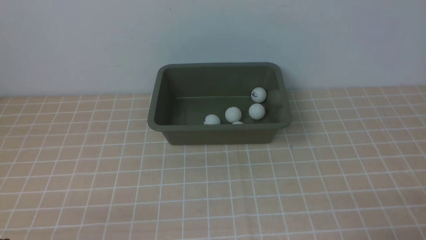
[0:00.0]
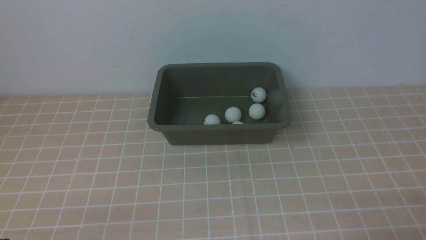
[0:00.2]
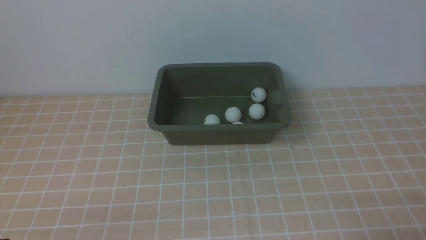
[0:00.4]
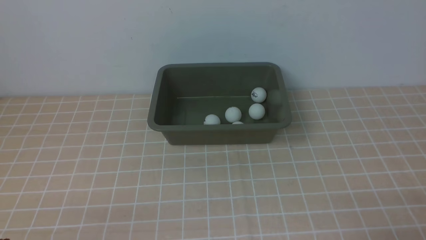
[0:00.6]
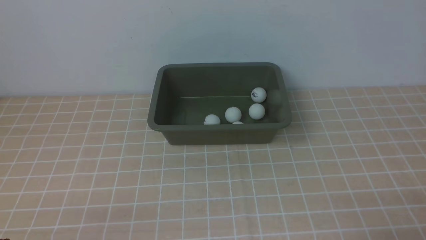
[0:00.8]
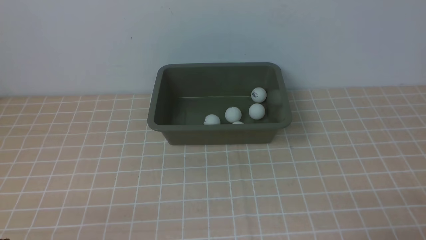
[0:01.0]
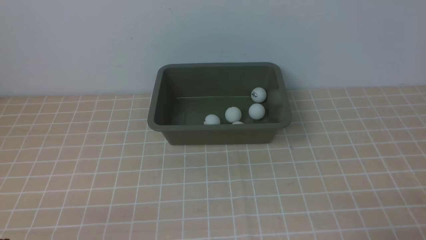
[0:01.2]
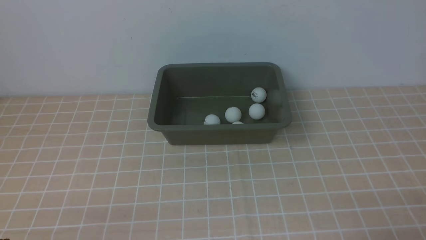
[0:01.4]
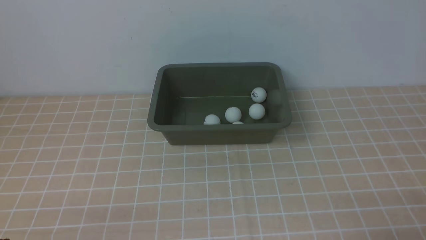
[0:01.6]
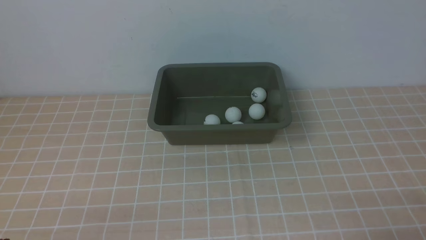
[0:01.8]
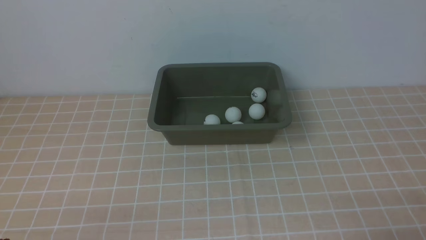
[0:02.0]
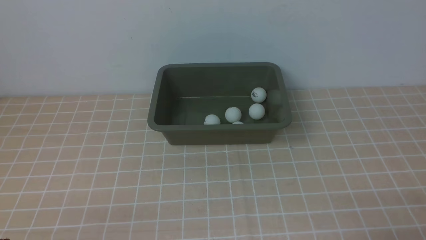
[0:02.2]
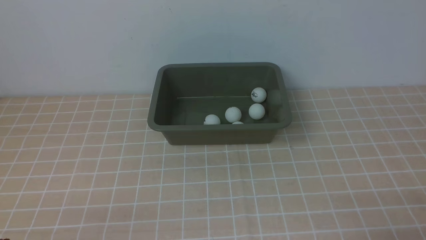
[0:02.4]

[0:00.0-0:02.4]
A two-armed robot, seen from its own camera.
0:00.0 to 0:02.4: The two grippers keep their place.

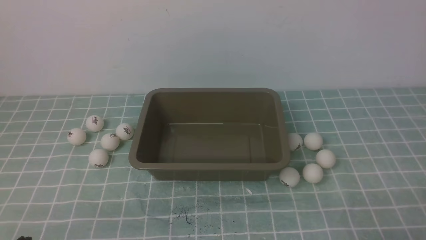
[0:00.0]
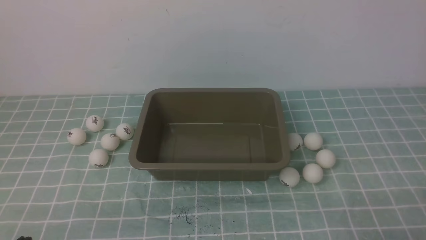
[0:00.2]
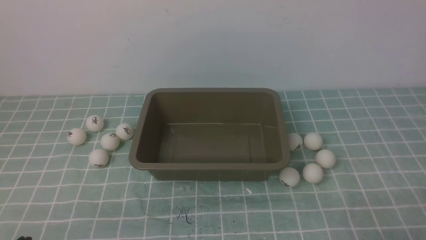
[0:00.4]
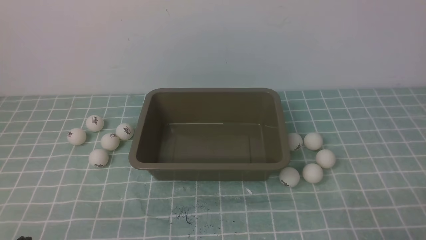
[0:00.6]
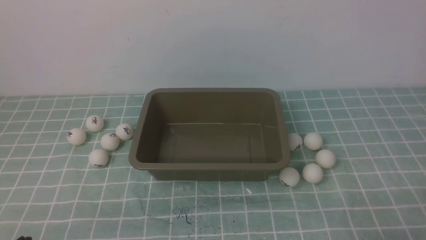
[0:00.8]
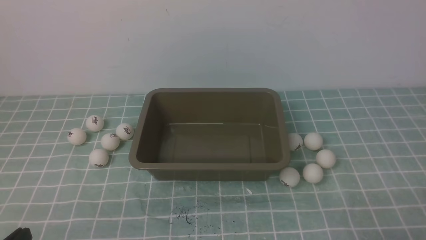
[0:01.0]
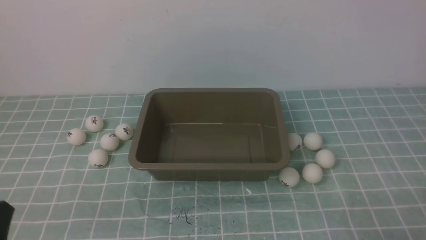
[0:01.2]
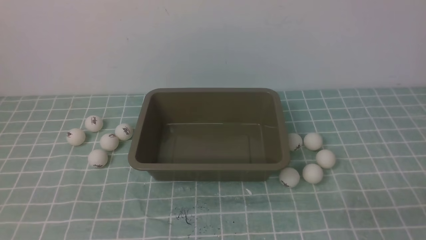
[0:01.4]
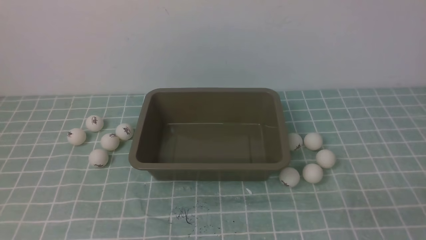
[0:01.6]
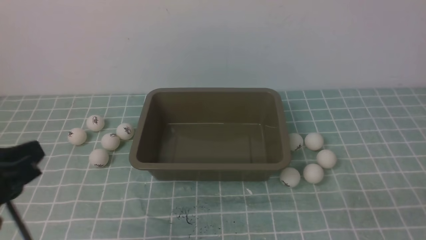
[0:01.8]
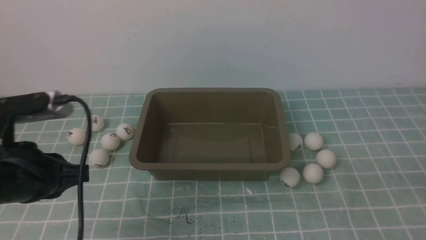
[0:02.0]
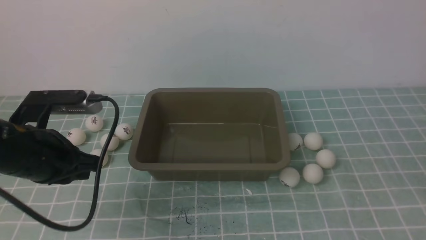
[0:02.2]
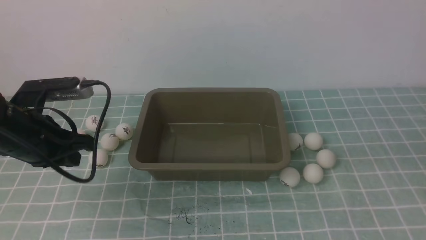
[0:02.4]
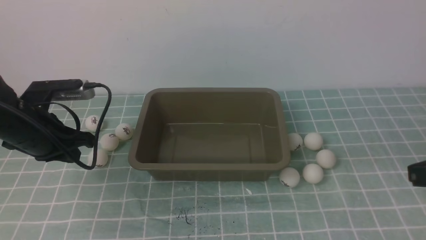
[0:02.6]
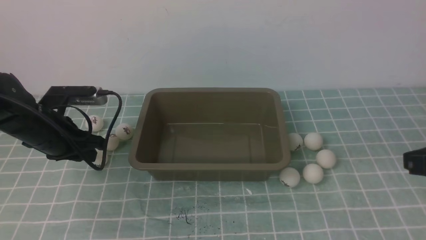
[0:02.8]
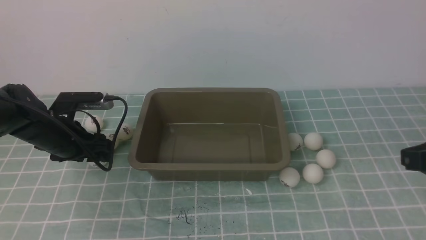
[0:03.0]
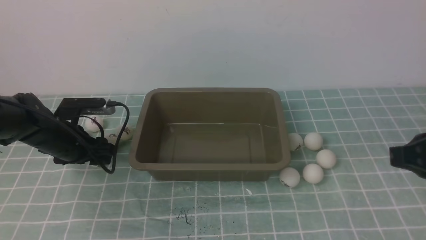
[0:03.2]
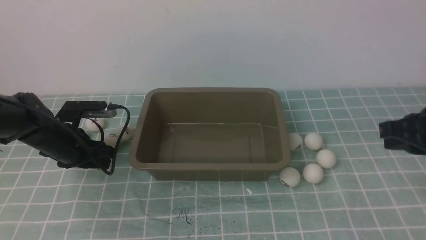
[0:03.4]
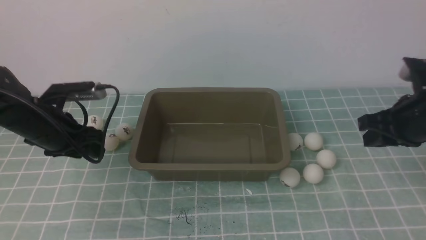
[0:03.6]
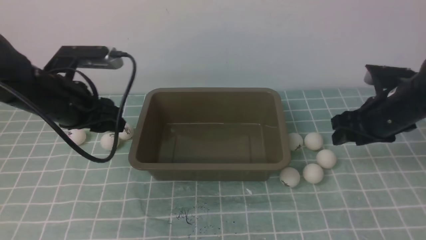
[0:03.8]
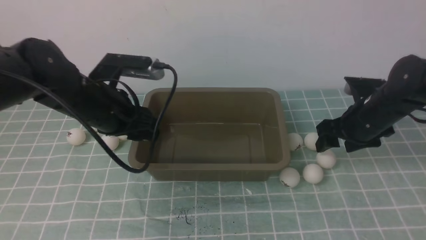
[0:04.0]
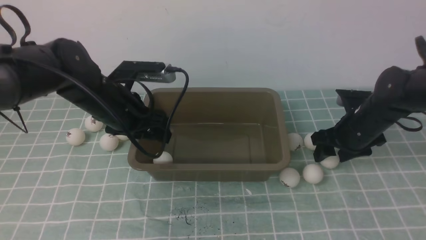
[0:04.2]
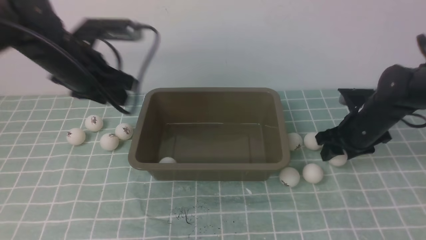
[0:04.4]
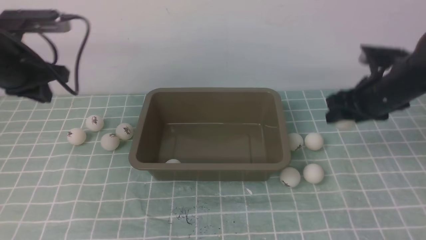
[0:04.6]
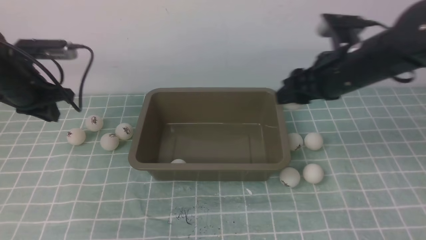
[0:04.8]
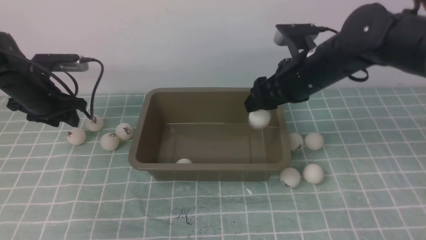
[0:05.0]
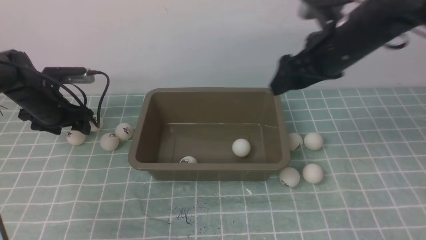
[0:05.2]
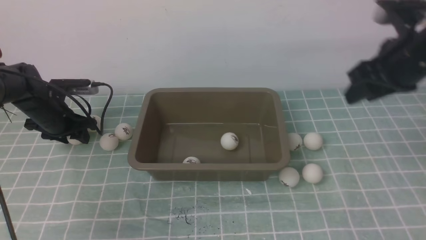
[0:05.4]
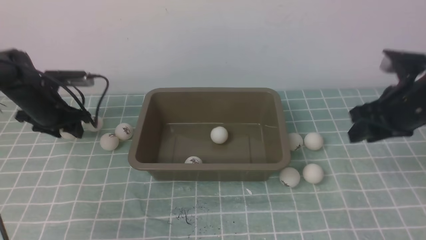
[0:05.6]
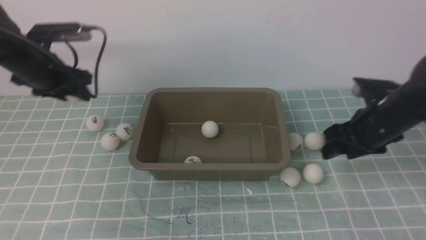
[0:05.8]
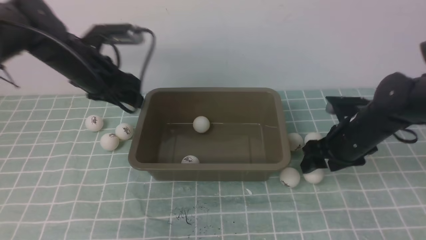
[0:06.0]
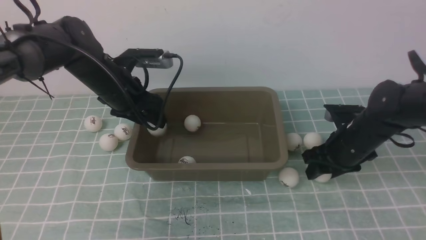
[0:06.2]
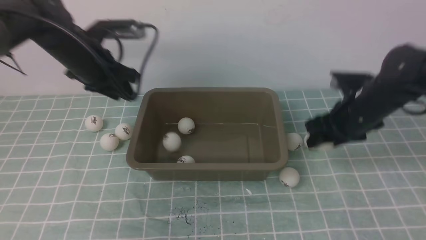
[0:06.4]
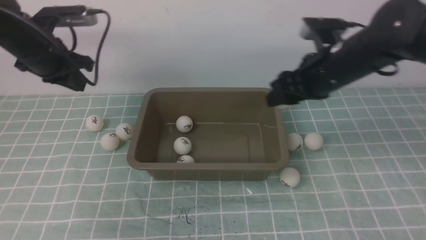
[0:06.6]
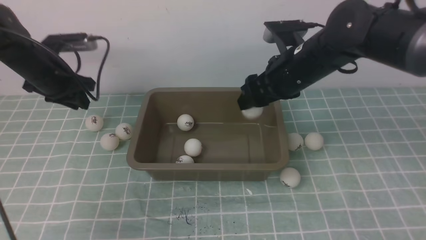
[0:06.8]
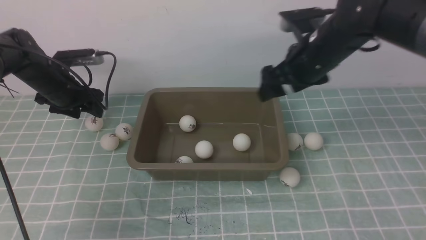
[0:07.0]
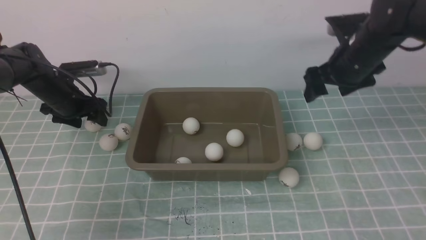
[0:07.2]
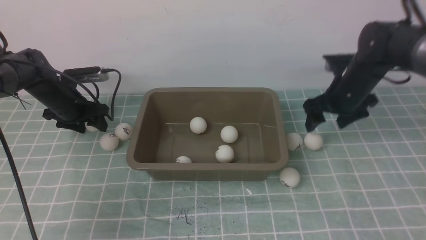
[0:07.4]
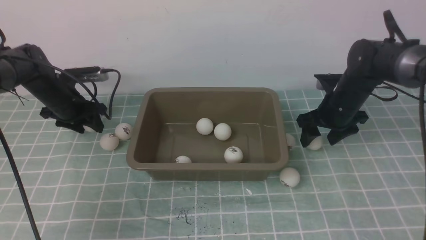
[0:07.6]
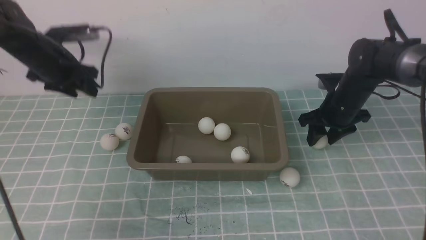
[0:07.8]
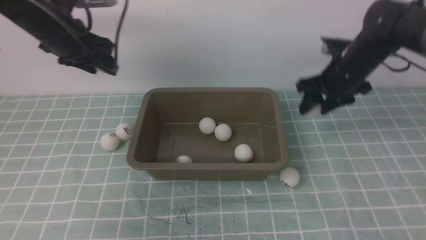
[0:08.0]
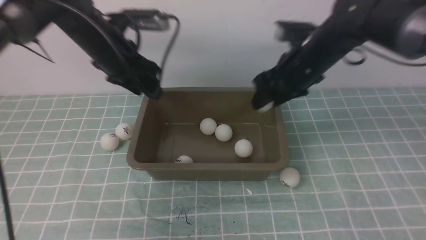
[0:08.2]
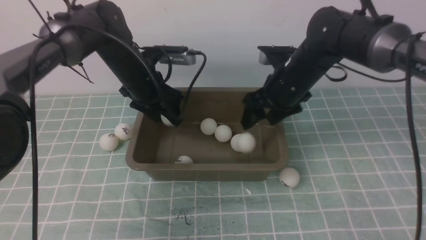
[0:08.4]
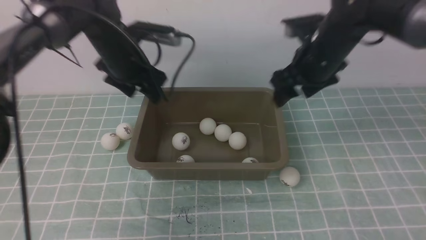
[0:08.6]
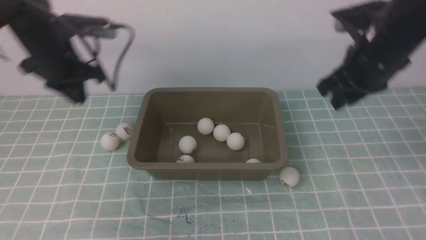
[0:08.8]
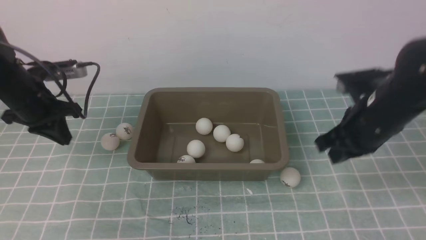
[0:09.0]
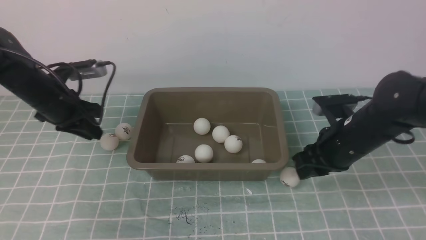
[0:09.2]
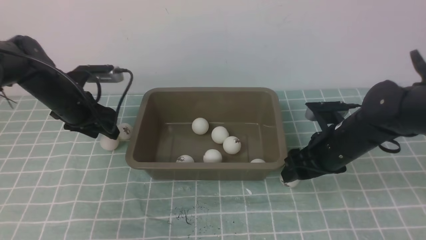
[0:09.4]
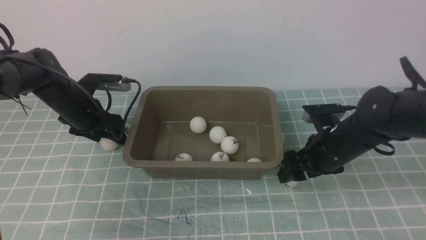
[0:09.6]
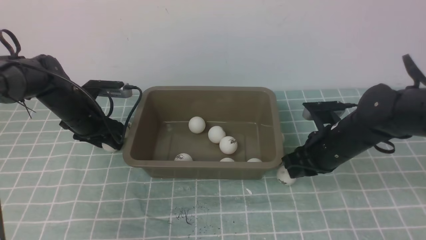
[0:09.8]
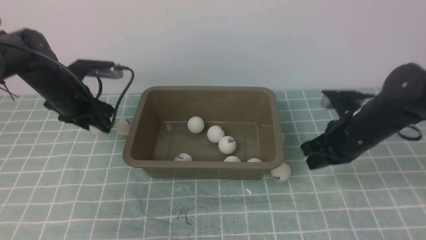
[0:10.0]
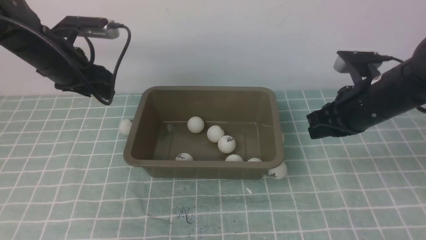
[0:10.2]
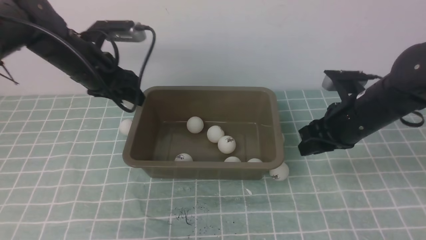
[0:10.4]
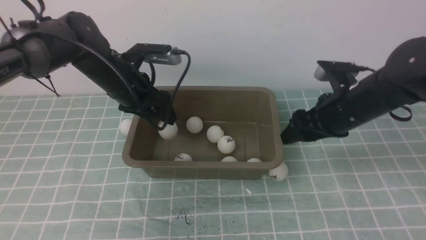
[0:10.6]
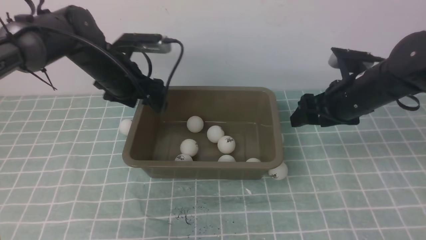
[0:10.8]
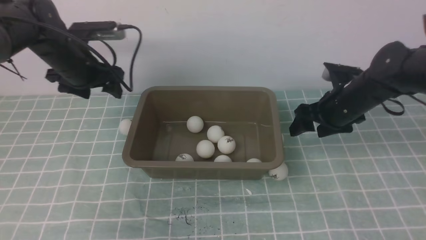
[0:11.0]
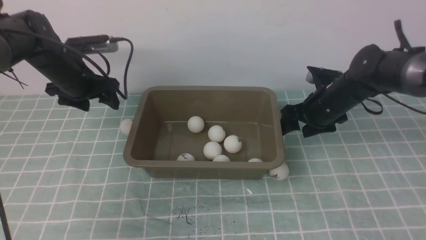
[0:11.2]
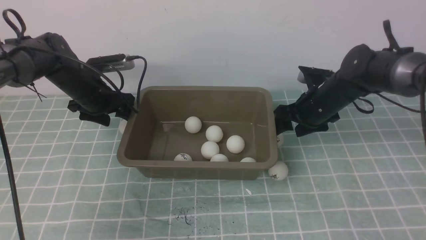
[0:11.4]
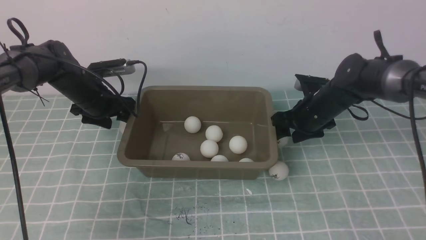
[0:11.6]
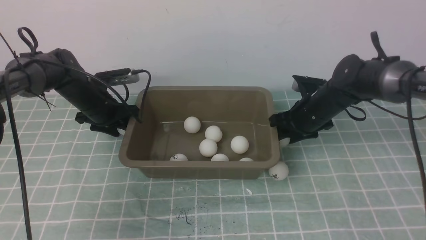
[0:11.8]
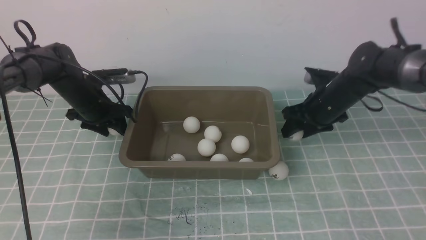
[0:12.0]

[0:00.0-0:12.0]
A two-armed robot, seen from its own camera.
Step, 0:00.0 to 0:03.4: use the left arm to clamp the table tennis ball closest to it.
Step, 0:03.6 to 0:04.2: use the left arm to put the table tennis ball into the box.
Step, 0:04.6 to 0:05.0: use the right arm to put the table tennis ball into the box.
Step, 0:05.2 to 0:05.6: use the left arm to clamp the table tennis ball closest to it.
Step, 0:05.8 to 0:06.2: use the left arm to put the table tennis ball into the box.
Step, 0:06.6 to 0:06.8: use the right arm to put the table tennis ball into the box.
Step, 0:07.0 to 0:07.8: use the left arm to clamp the table tennis ball closest to it.
Step, 0:08.0 to 0:08.4: use the left arm to put the table tennis ball into the box.
Step, 0:08.6 to 0:08.8: use the right arm to put the table tennis ball into the box.
Step, 0:09.0 to 0:09.8: use the left arm to clamp the table tennis ball closest to it.
Step, 0:10.0 to 0:10.6: use the left arm to put the table tennis ball into the box.
Step, 0:10.8 to 0:11.8: use the left arm to clamp the table tennis ball closest to it.
0:01.6 to 0:03.0: The left gripper shifts roughly 30 cm forward and downward, and opens up; the right gripper shifts some 15 cm forward and upward.
0:03.0 to 0:04.4: The left gripper is displaced upward by some 10 cm. The right gripper heads forward and downward, covering about 25 cm, and opens its fingers.
0:04.4 to 0:06.0: The right gripper travels upward and back again, approximately 10 cm each way. The left gripper reaches roughly 15 cm downward, then returns.
0:06.0 to 0:07.6: The right gripper goes roughly 10 cm forward, and travels upward and back again, roughly 10 cm each way; the left gripper shifts about 15 cm to the left, downward and forward, and closes, then reopens.
0:07.6 to 0:09.0: The left gripper goes some 5 cm backward, reaches about 15 cm to the right, then returns, and closes its fingers; the right gripper is displaced backward and upward by approximately 15 cm, and closes its fingers.
0:09.0 to 0:10.4: The left gripper goes approximately 10 cm to the right, travels downward and back again, about 5 cm each way, and opens up. Meanwhile the right gripper travels downward and back again, about 10 cm each way.
0:10.4 to 0:12.0: The left gripper is displaced downward and to the left by some 10 cm. Meanwhile the right gripper goes about 10 cm forward.

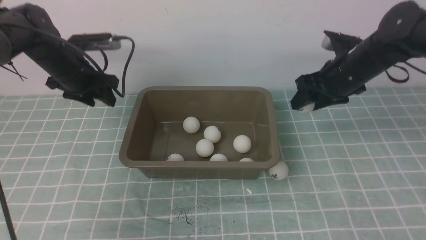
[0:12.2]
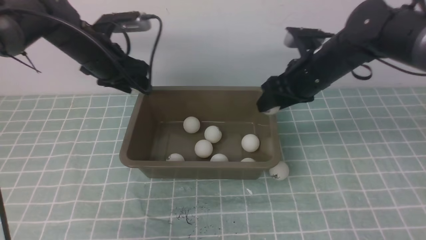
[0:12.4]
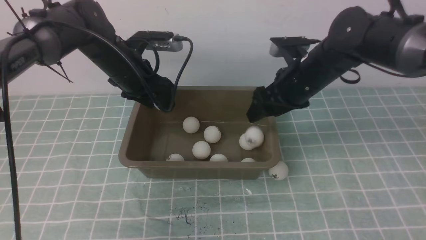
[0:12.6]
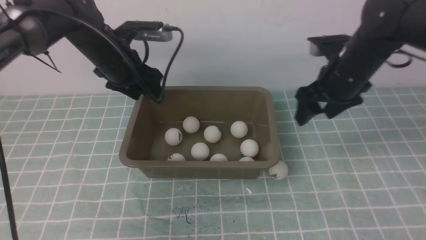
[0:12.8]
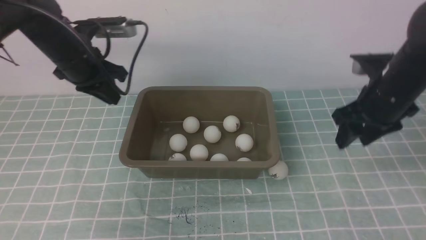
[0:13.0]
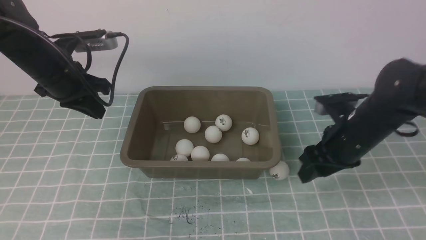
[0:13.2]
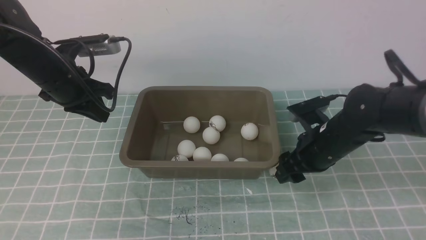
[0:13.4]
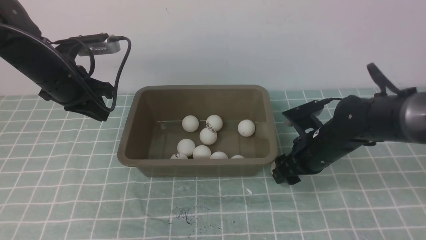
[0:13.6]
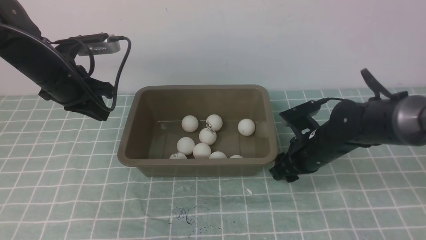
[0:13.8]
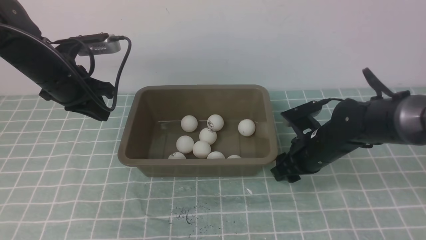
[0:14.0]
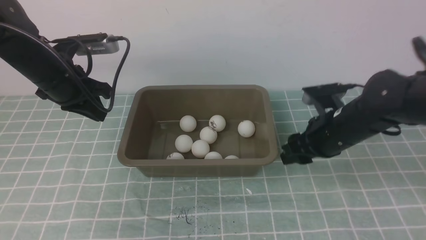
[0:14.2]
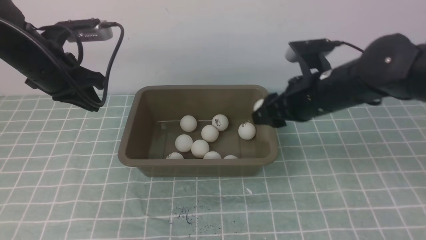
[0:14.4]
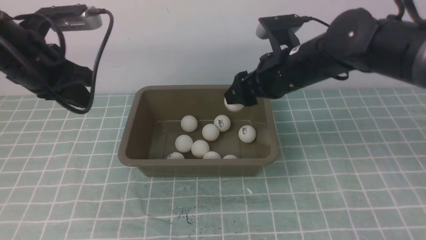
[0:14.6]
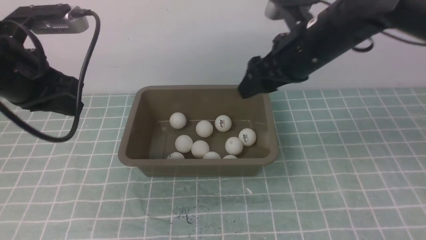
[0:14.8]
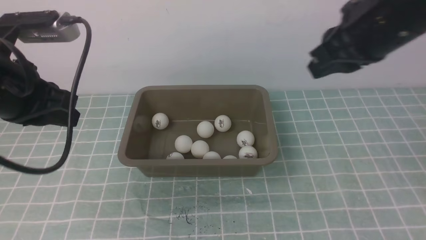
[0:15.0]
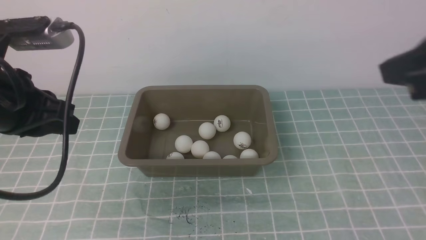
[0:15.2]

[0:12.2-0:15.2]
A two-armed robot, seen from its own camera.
Step, 0:12.2 to 0:12.6: use the left arm to put the table tennis ball into the box.
Step, 0:12.8 to 0:14.0: use the right arm to clamp the table tennis ball closest to it.
Step, 0:14.2 to 0:14.8: use the right arm to put the table tennis ball into the box.
0:12.2 to 0:13.8: The left gripper goes approximately 5 cm backward, and closes; the right gripper travels downward and backward by roughly 10 cm.
0:13.8 to 0:15.2: The right gripper heads upward and backward, covering roughly 35 cm, and closes its fingers. The left gripper goes about 20 cm backward and upward.
